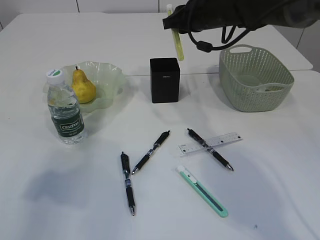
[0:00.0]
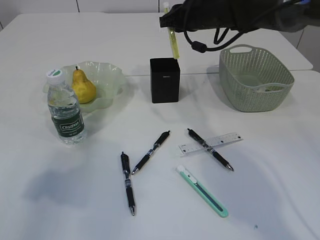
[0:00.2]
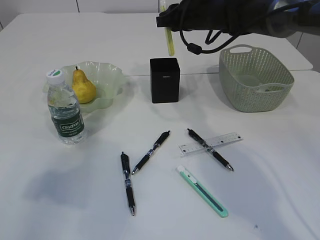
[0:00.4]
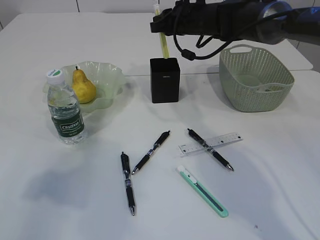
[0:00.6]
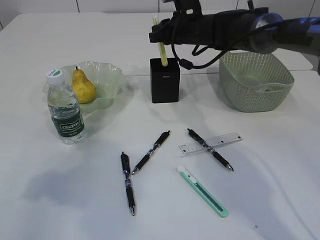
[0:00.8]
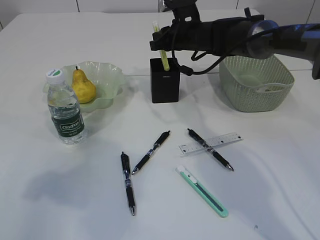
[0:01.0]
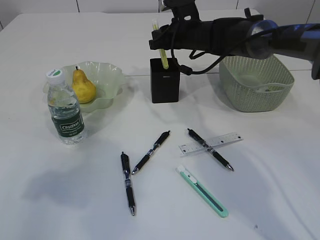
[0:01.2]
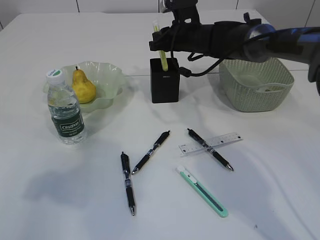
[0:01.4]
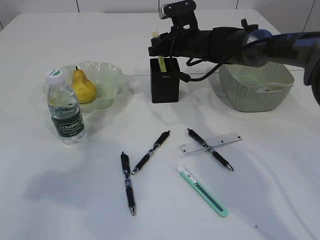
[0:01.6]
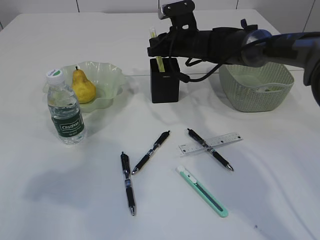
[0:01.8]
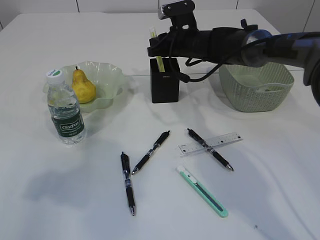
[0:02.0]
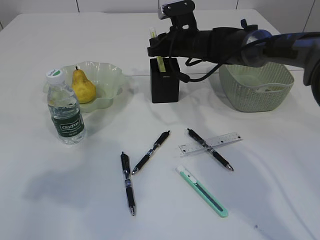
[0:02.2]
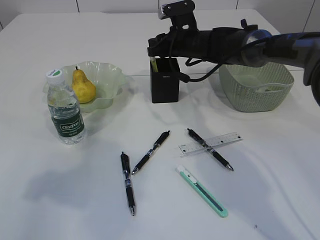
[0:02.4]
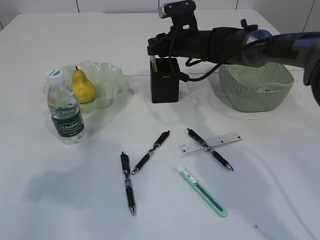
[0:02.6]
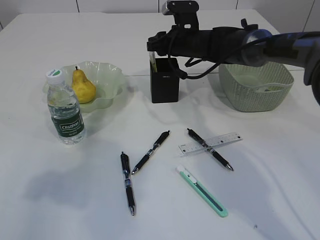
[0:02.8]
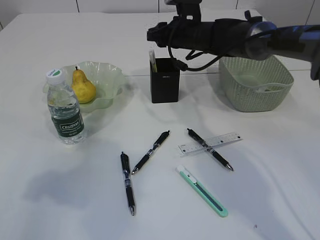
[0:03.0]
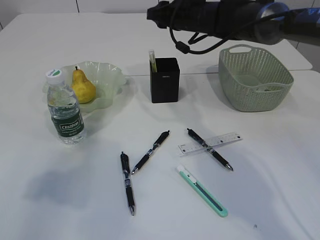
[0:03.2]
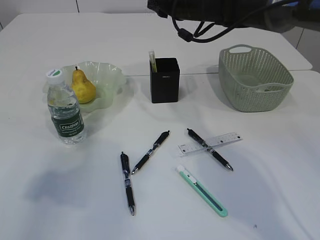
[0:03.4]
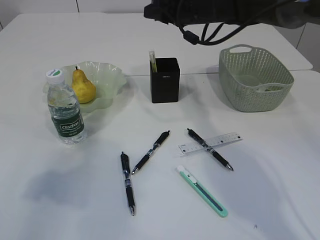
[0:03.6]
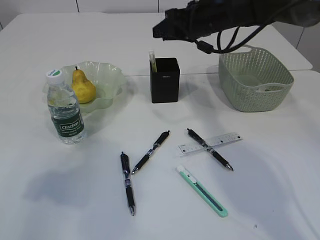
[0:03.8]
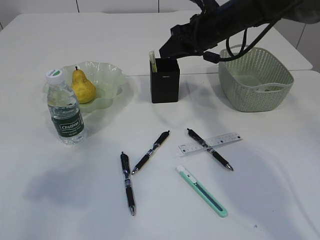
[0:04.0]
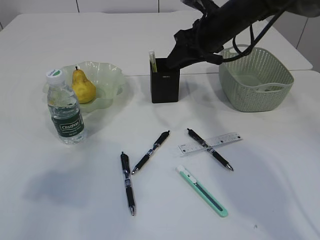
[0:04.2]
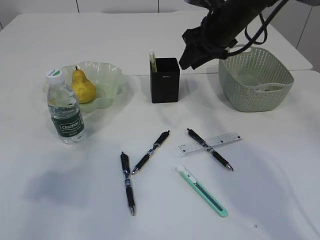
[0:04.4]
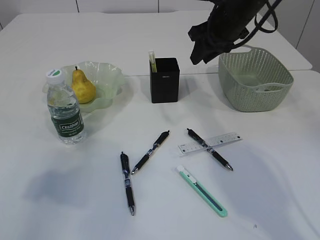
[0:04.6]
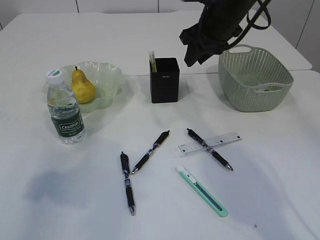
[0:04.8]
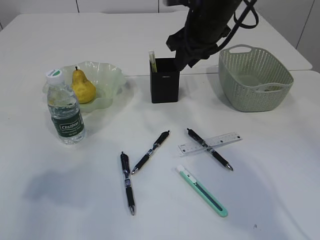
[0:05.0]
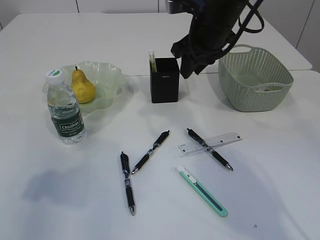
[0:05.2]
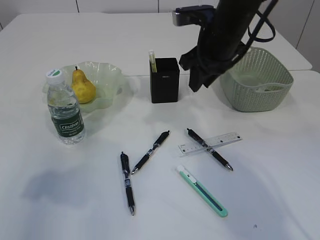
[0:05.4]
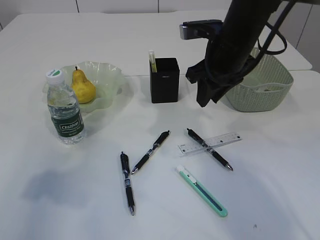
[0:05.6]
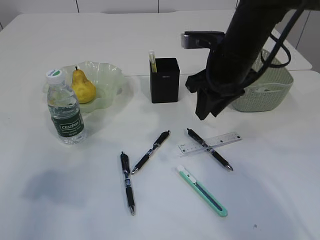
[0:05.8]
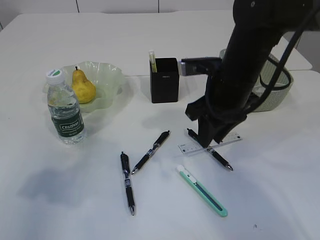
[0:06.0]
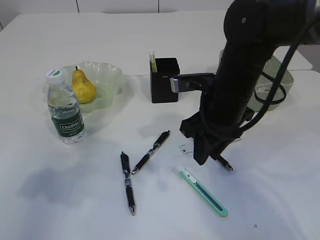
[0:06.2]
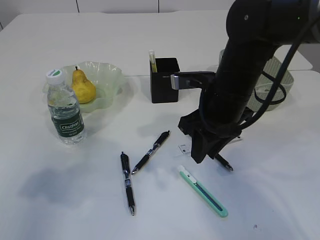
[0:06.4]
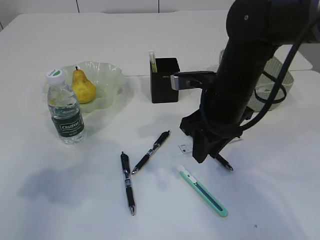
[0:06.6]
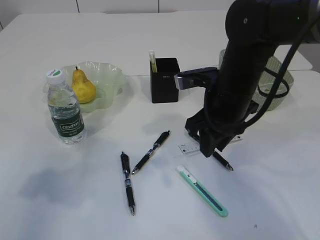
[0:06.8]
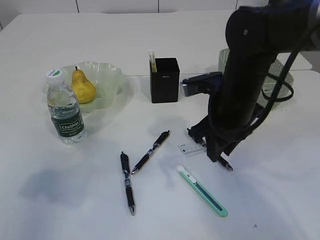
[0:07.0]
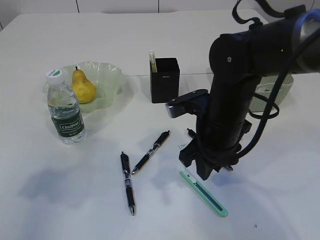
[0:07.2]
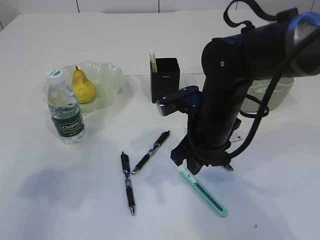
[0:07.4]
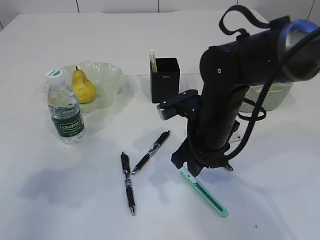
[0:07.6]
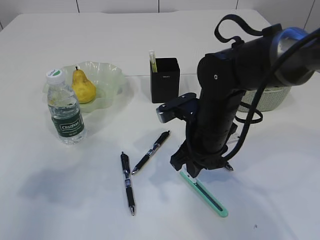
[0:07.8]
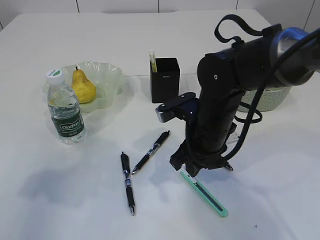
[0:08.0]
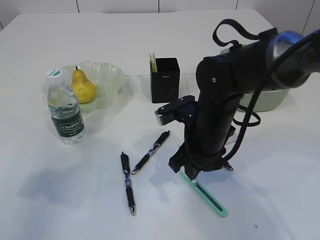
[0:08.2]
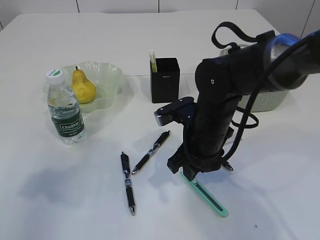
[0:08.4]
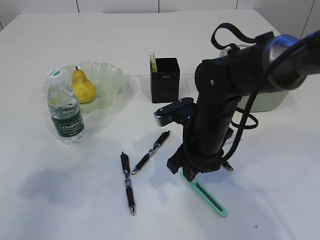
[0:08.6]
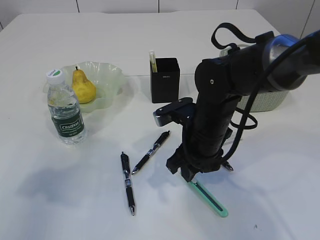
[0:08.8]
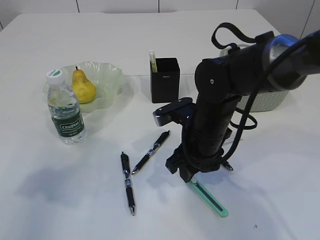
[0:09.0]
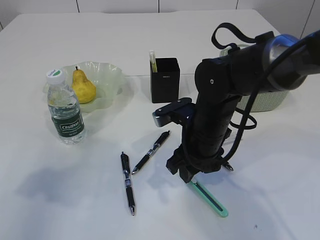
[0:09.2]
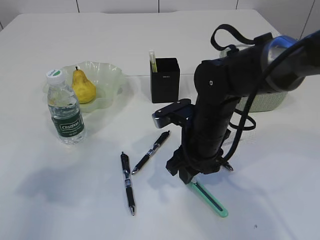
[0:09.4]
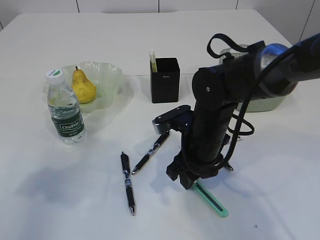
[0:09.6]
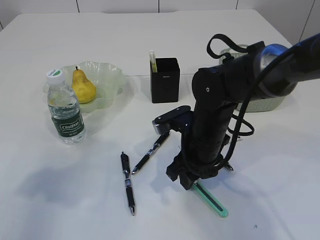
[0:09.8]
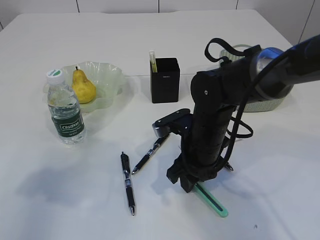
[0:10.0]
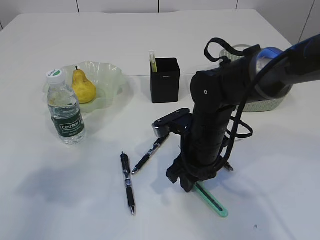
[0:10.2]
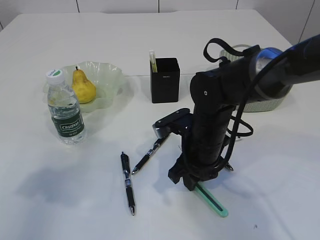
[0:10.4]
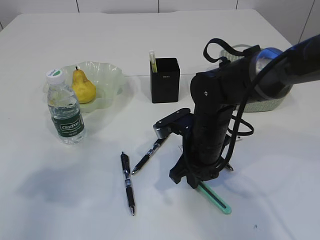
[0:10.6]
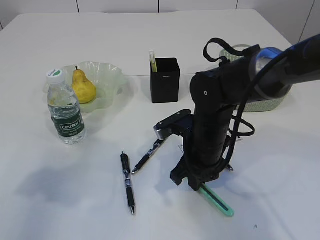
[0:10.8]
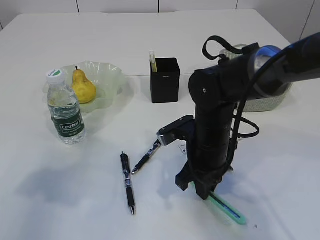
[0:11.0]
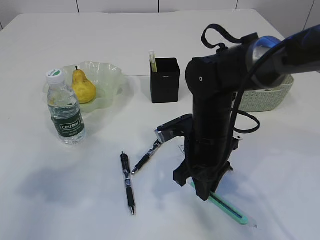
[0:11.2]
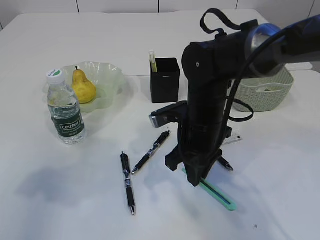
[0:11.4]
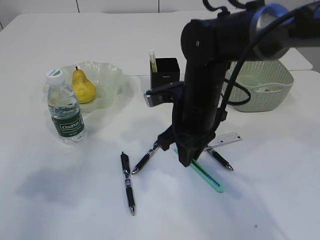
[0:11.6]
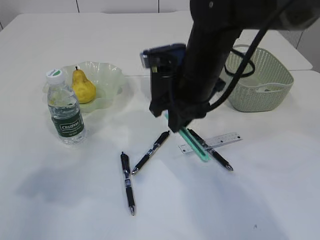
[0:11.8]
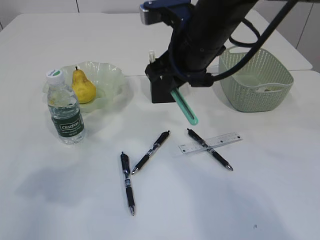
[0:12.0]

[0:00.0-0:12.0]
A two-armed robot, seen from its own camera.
Step, 0:00.0 to 0:02.8: place the yellow knife into the pen holder.
Step, 0:03.0 to 0:11.2: pick up the blue scissors.
0:00.0 to 0:01.6: The right gripper travels downward by roughly 5 cm.
0:01.6 to 0:03.0: There are only small adjustments of the grippers.
0:03.0 to 0:04.4: The right gripper travels backward, to the right and upward by approximately 10 cm.
0:04.4 to 0:06.0: The right gripper is displaced backward by approximately 10 cm.
0:06.0 to 0:07.6: The right gripper heads downward, covering approximately 5 cm.
0:07.6 to 0:10.4: The grippers move only a little.
0:10.4 to 0:12.0: The right gripper shifts roughly 15 cm upward, and closes up.

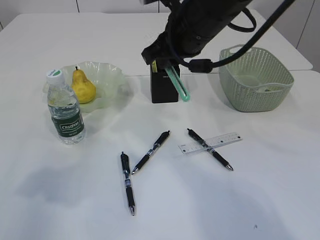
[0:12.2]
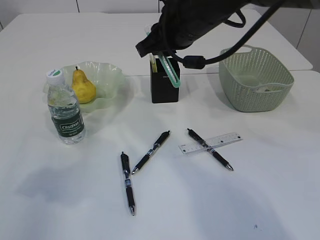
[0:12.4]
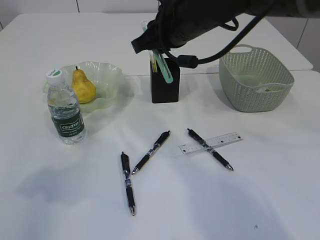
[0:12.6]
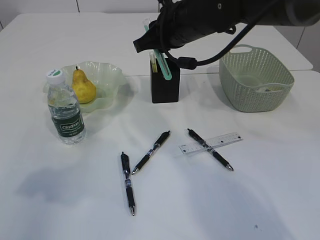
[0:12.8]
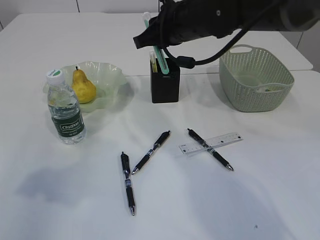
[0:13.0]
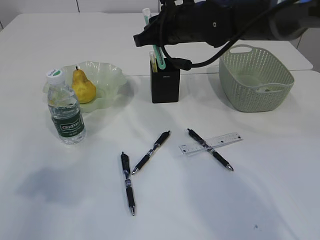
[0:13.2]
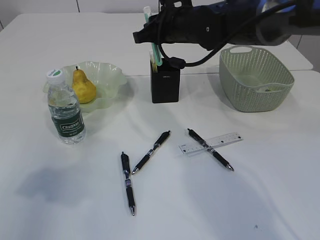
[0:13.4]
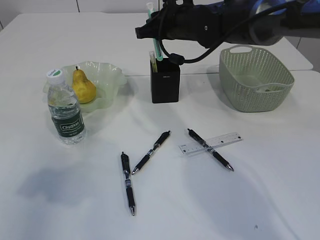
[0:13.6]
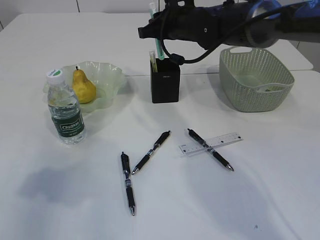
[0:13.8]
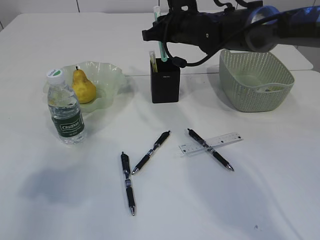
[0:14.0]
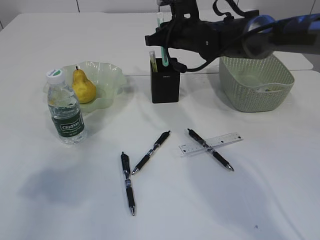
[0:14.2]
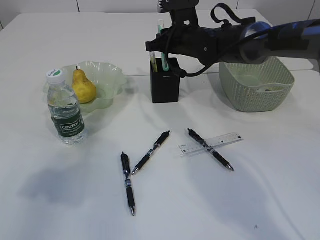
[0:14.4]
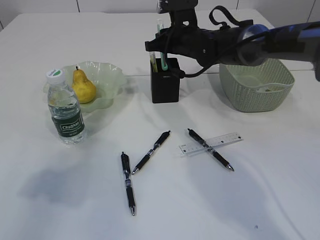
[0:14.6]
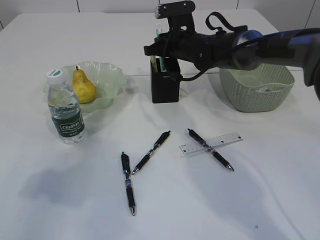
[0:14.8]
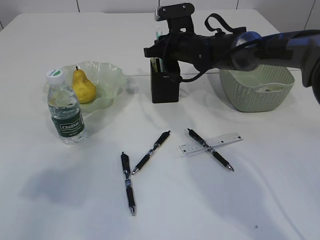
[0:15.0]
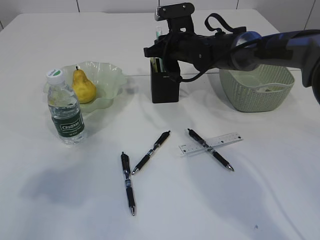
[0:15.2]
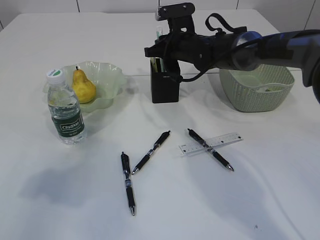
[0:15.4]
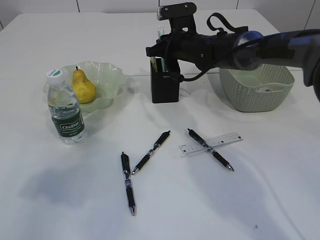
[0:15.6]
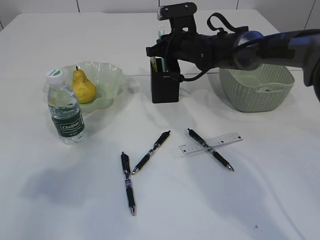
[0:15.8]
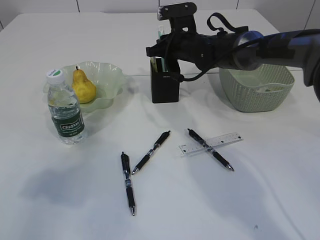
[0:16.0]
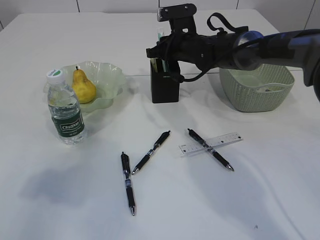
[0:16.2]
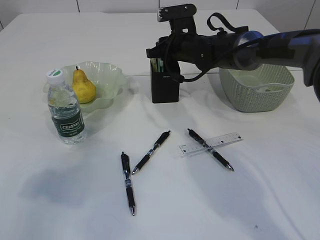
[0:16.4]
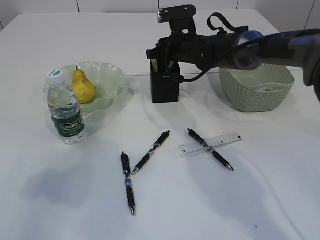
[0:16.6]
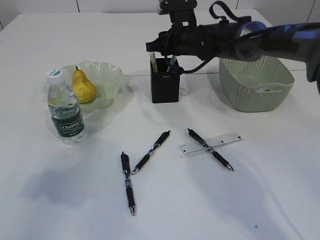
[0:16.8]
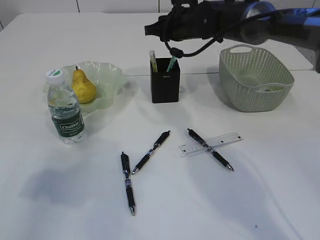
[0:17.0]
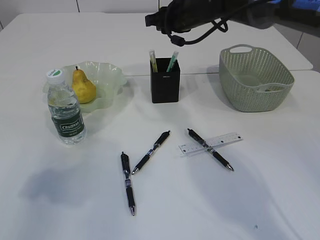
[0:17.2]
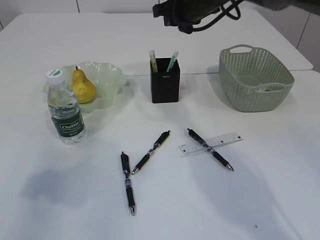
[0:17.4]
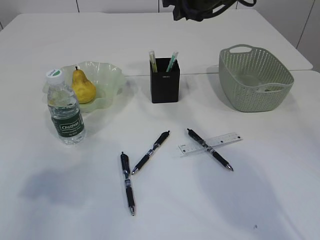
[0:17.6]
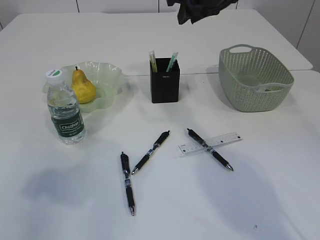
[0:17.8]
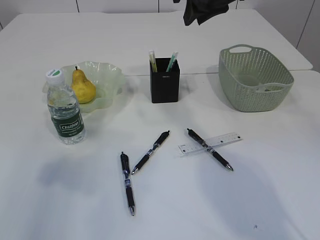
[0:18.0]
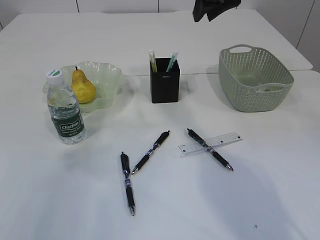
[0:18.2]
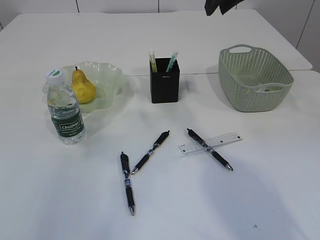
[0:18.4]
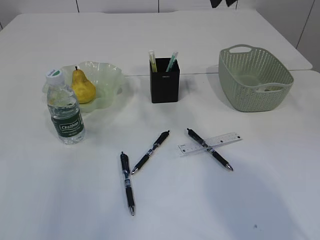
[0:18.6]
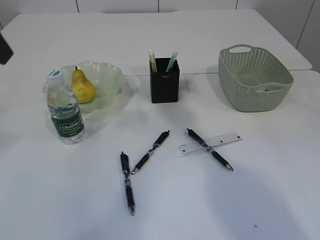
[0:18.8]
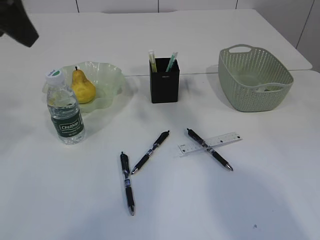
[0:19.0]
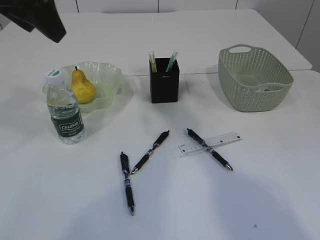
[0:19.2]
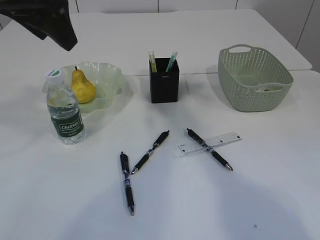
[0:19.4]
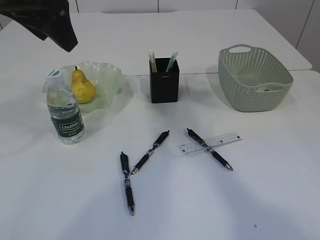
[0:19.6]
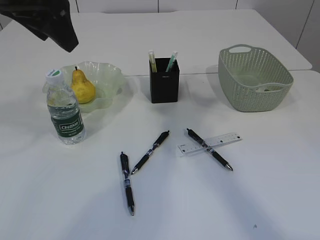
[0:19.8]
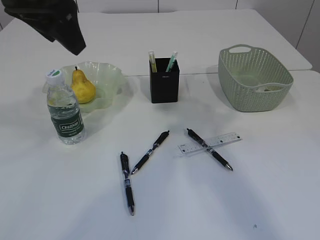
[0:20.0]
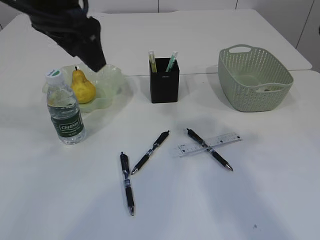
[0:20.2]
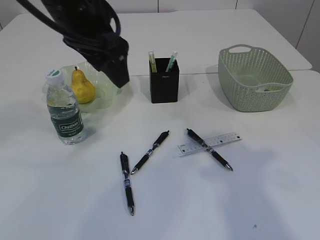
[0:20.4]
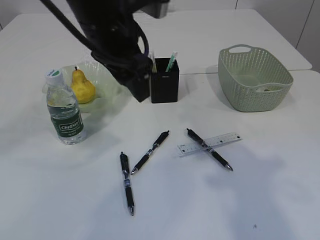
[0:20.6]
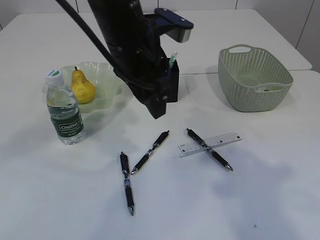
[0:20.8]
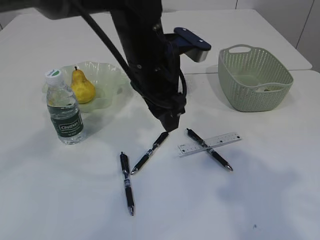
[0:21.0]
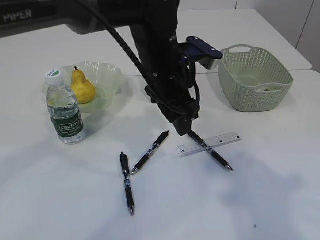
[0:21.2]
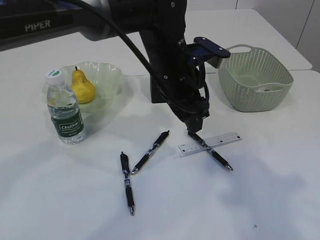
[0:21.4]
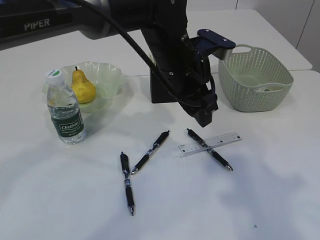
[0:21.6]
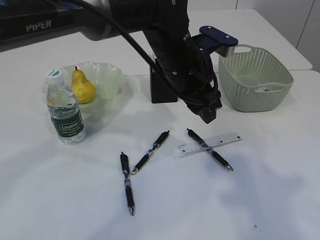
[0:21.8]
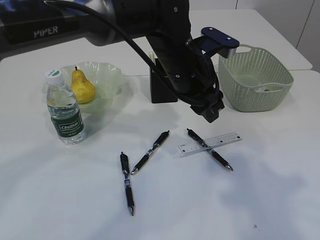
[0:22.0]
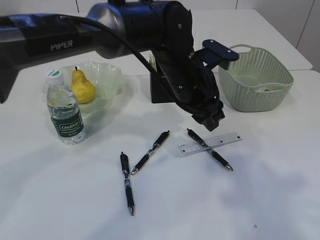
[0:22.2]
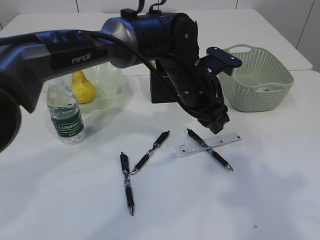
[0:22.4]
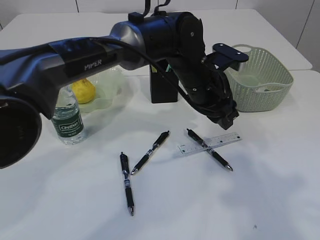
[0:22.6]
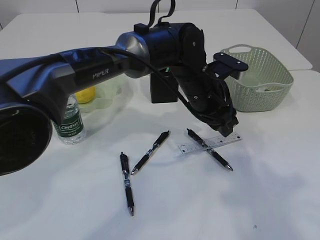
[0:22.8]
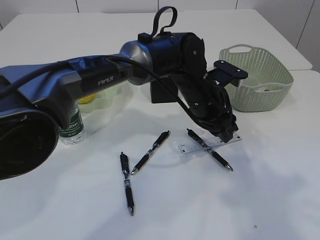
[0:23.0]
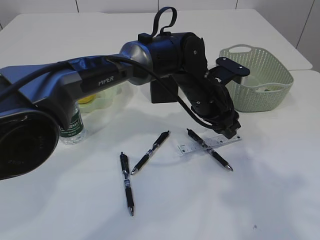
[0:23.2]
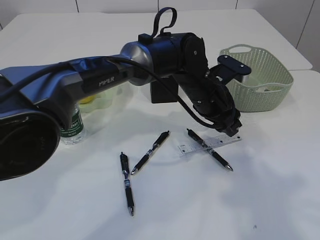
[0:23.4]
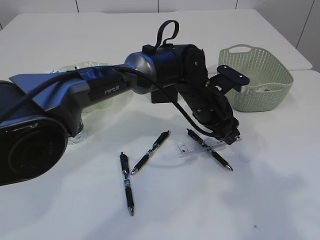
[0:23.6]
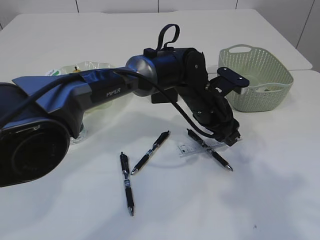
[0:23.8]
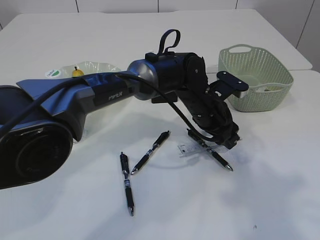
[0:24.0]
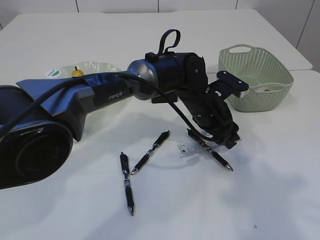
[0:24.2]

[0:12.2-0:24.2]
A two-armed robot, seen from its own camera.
Step, 0:12.2 to 0:17.2: Place the blue knife into the pen holder.
0:12.2 to 0:13.8: The right gripper goes approximately 15 cm forward and downward.
0:13.8 to 0:15.2: The right gripper moves downward, approximately 5 cm.
0:15.2 to 0:16.6: Both grippers stay about where they are.
0:16.6 to 0:18.2: The right gripper shifts about 20 cm upward and backward. Meanwhile the left gripper shifts by about 5 cm.
0:18.2 to 0:19.8: The left gripper heads forward and to the right, covering roughly 15 cm. Meanwhile the right gripper goes roughly 20 cm backward, upward and to the right.
0:19.8 to 0:21.2: The right gripper moves backward and downward, about 20 cm. The left gripper is displaced to the right and downward by some 25 cm.
0:21.2 to 0:22.6: The left gripper is displaced to the right and downward by approximately 10 cm.
0:22.6 to 0:24.2: The left gripper moves downward, about 5 cm.
